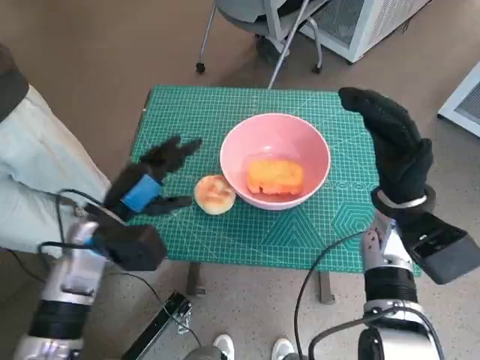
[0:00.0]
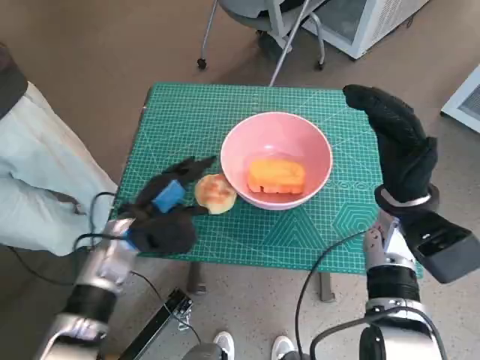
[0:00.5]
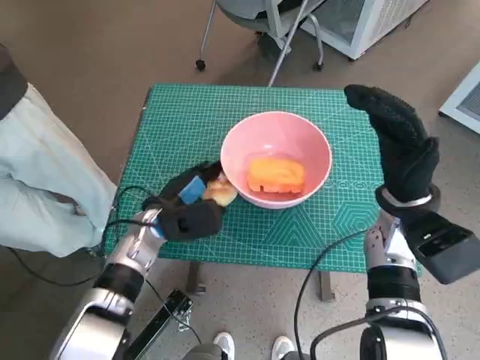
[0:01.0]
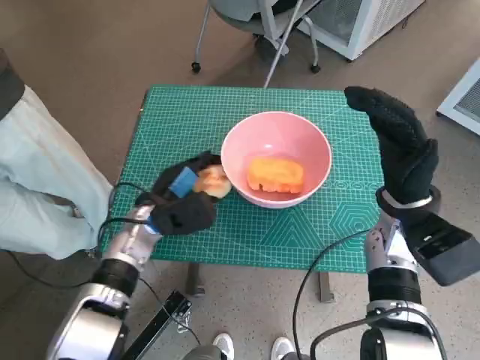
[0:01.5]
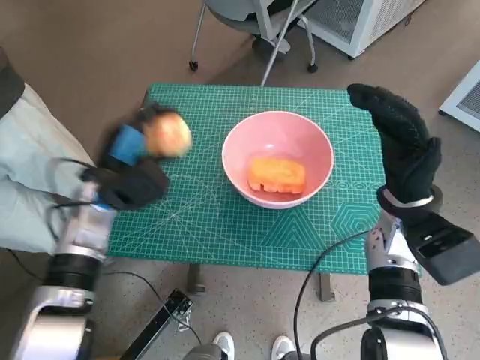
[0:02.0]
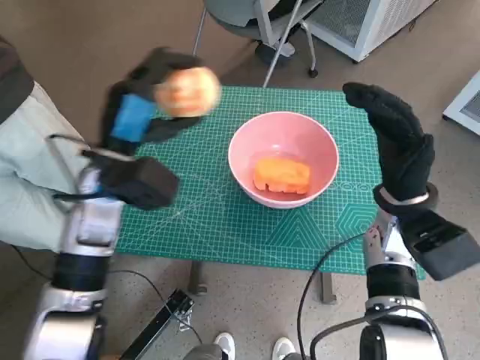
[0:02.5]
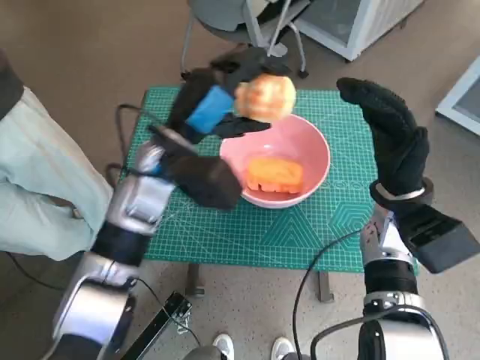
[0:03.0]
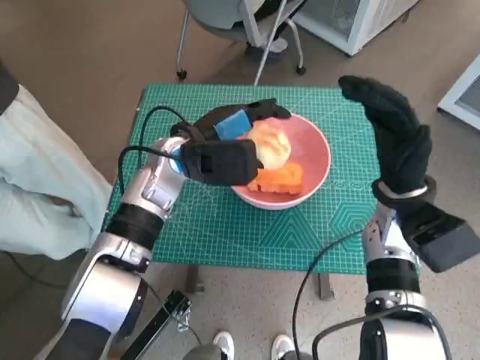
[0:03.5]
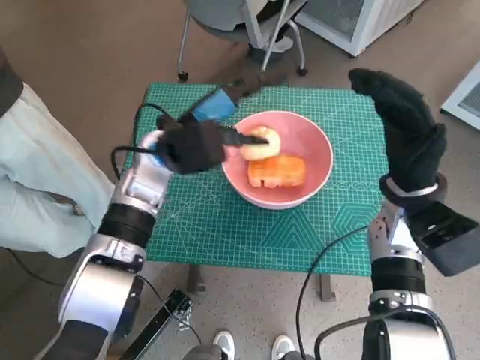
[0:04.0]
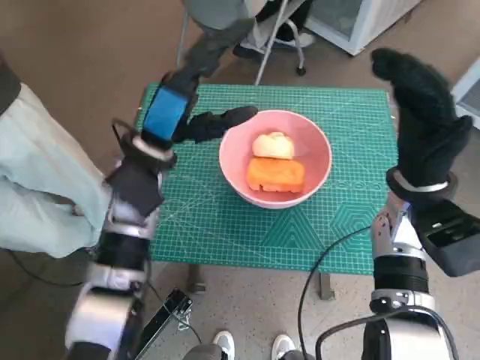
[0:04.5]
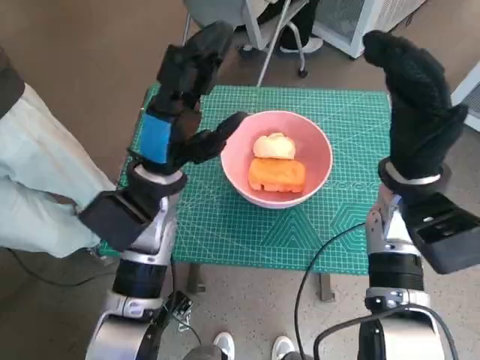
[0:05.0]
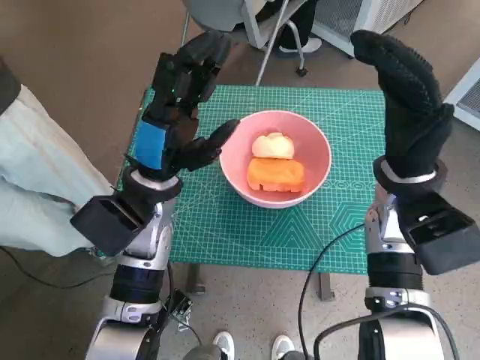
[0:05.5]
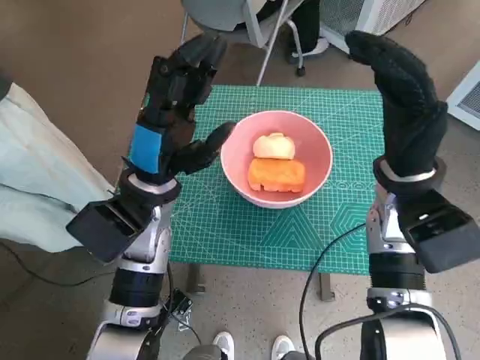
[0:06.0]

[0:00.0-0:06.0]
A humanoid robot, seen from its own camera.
Task of the whole recording: Push the bowl to the center of the table and put the bread into the bowl.
Step, 0:01.5 to 0:03.5: Place the round bread in pink bowl with left hand.
0:00.0 to 0:02.0: The left hand is displaced forward by approximately 5 cm.
0:02.0 to 0:04.0: The left hand goes approximately 10 cm to the right and upward.
0:04.0 to 0:06.0: The left hand is displaced backward by about 5 cm.
